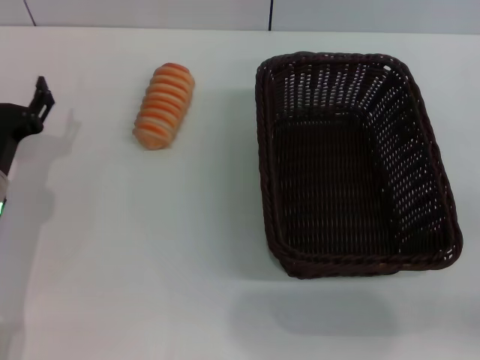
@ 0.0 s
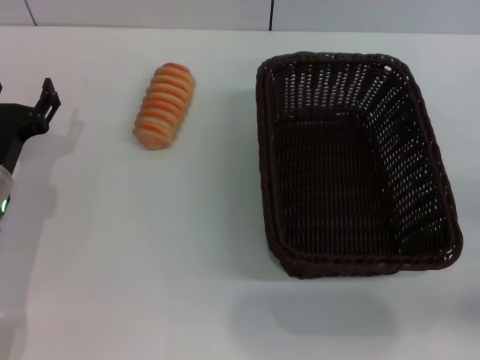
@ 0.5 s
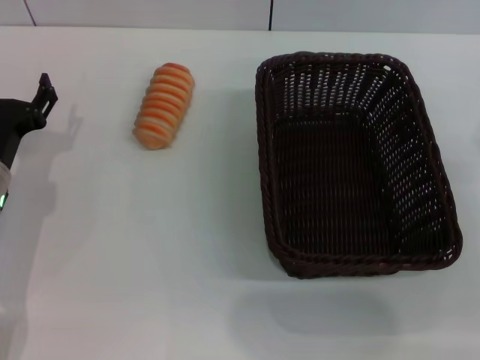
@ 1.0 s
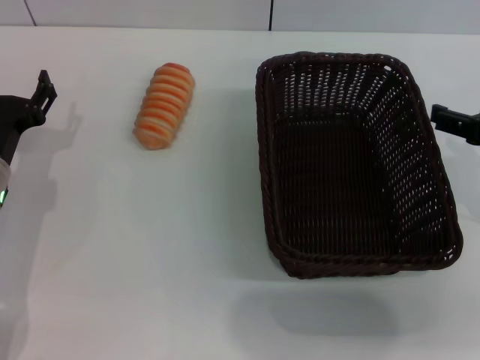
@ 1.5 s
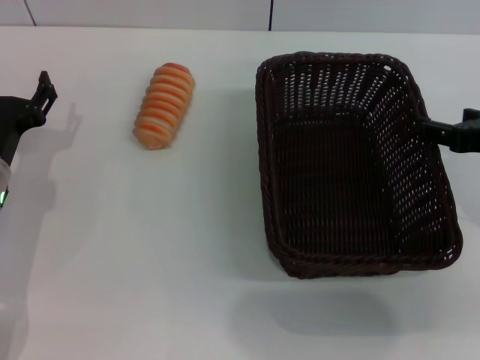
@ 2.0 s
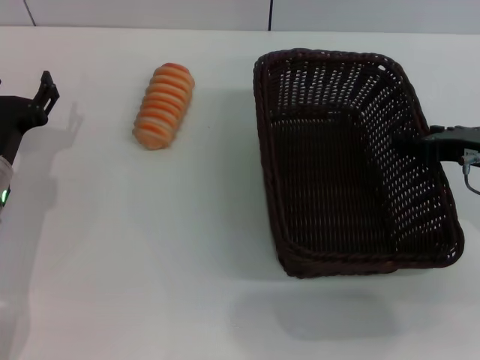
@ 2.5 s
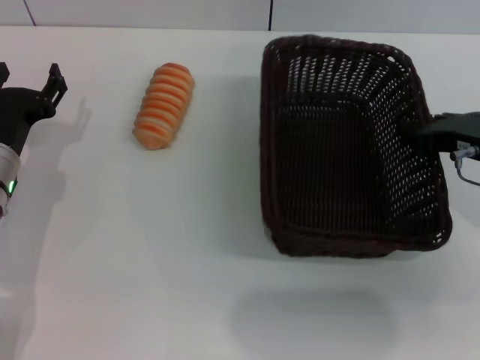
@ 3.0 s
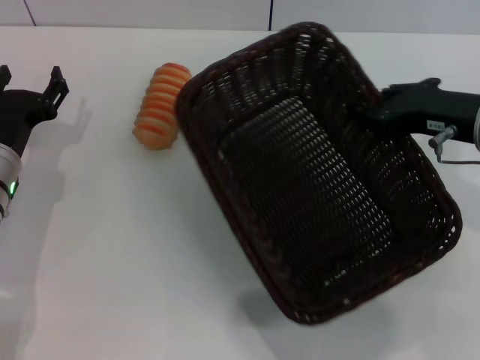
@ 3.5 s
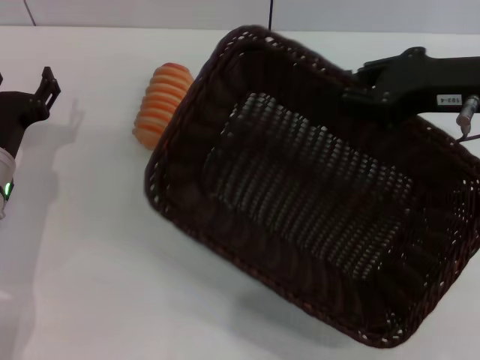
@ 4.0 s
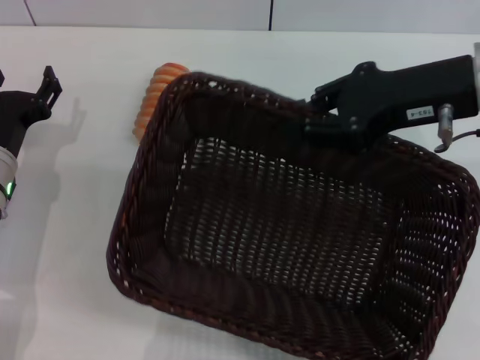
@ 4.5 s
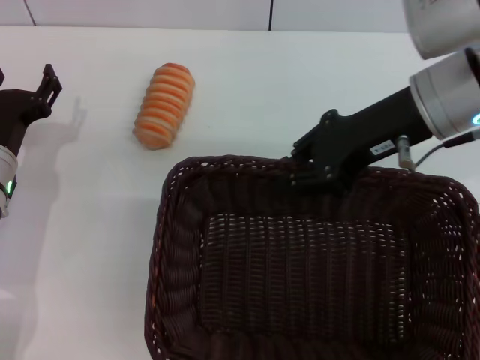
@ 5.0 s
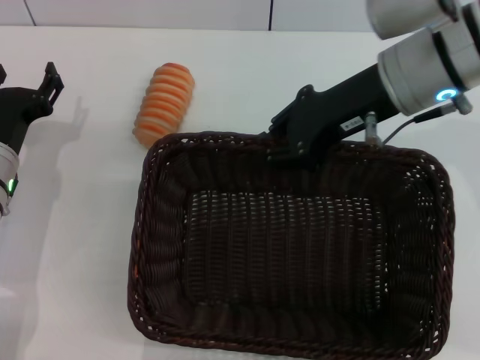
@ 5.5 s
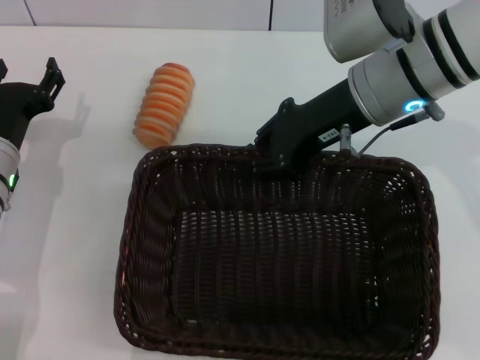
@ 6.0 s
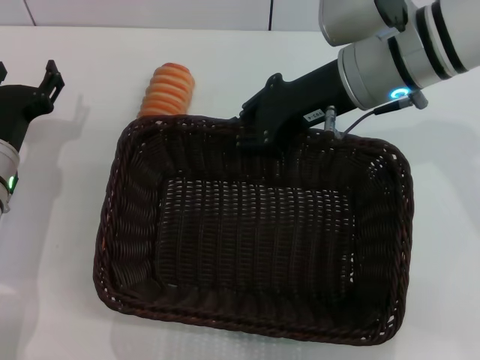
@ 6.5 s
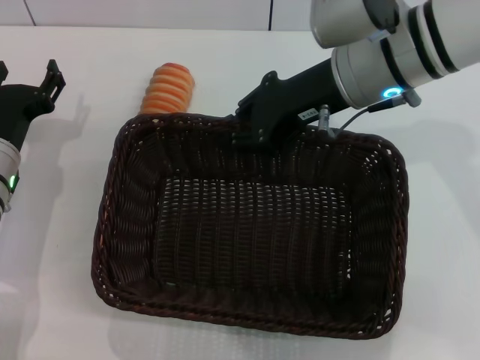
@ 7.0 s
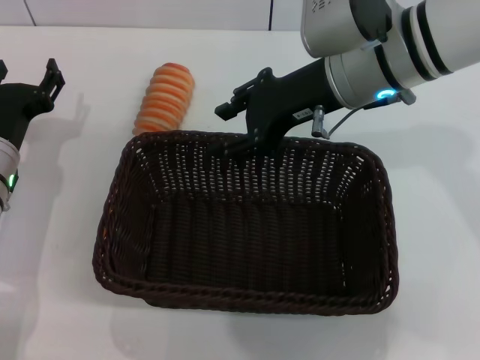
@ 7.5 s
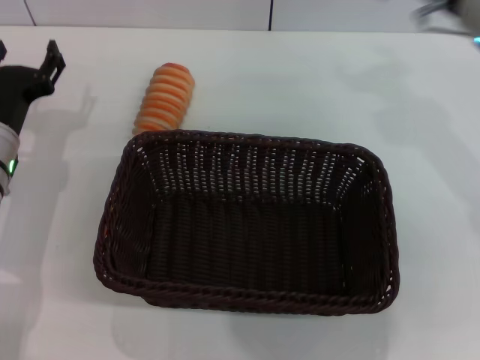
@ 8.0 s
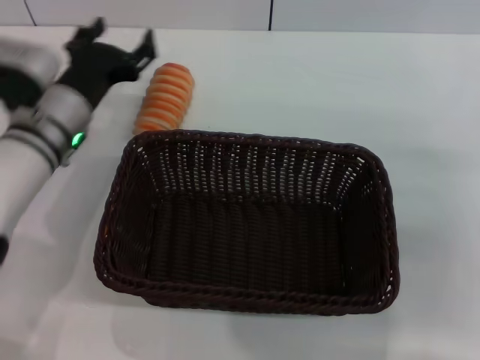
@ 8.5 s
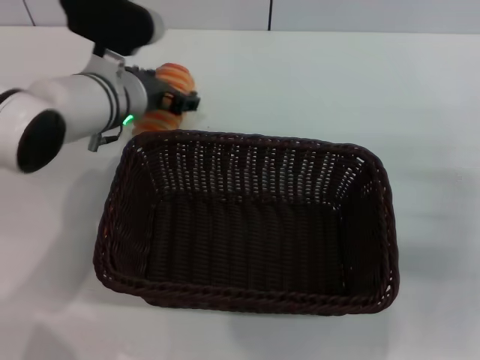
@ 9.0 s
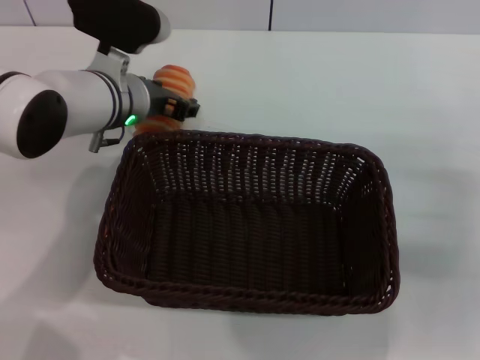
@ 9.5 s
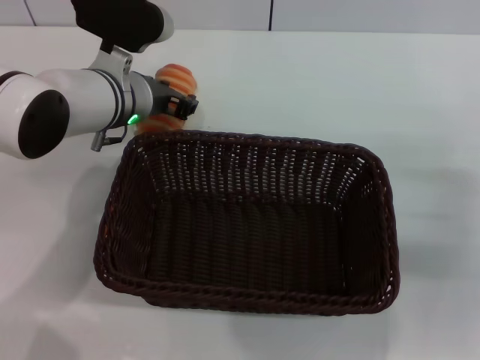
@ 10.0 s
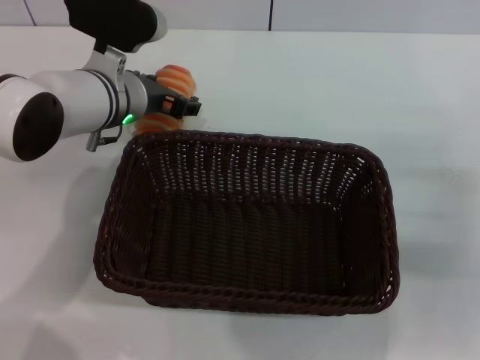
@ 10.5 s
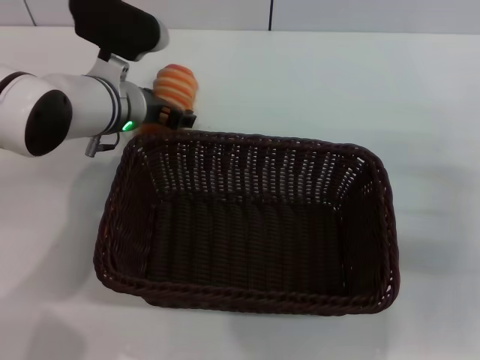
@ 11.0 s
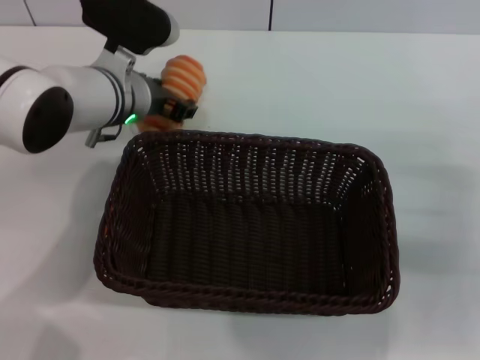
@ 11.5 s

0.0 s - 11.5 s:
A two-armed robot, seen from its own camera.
Step, 0.0 s - 4.5 s: Pick up the dark basket with the right gripper.
Step, 5.0 s - 7.0 s: Place the dark basket in the center of view with the right gripper.
0.0 s - 2.0 s: The right gripper goes about 20 cm upward, forward and to the left.
2.0 s - 4.0 s: The right gripper moves upward, some 5 cm, and closes its fingers.
4.0 s - 6.0 s: The right gripper heads to the left and forward, covering approximately 10 cm.
7.5 s - 9.5 s: The right gripper heads to the right, backward and downward, covering approximately 25 cm, and opens up, while the left gripper shifts some 15 cm to the right, forward and upward.
9.5 s - 11.5 s: The left gripper closes.

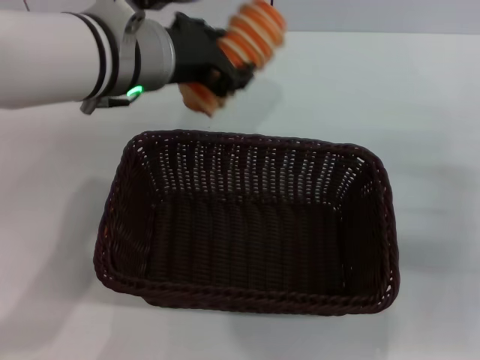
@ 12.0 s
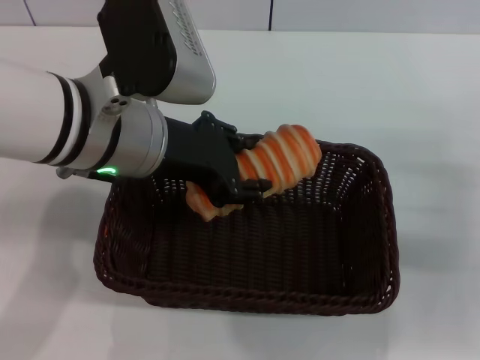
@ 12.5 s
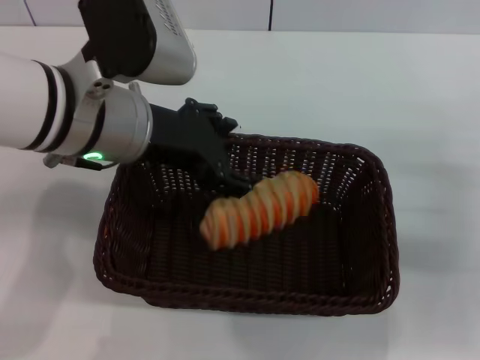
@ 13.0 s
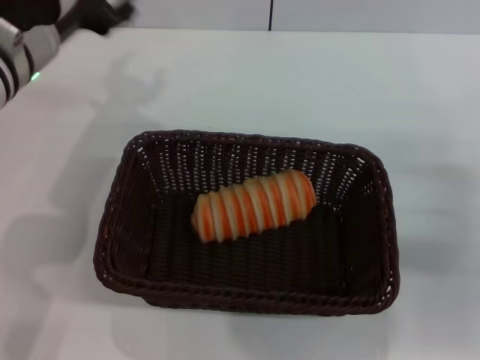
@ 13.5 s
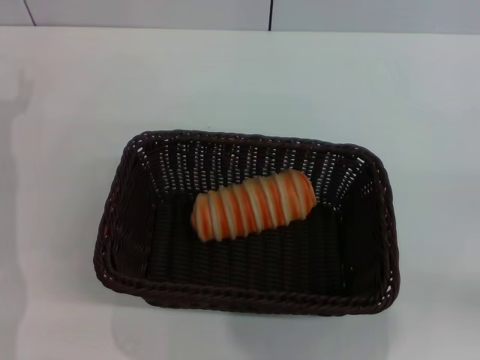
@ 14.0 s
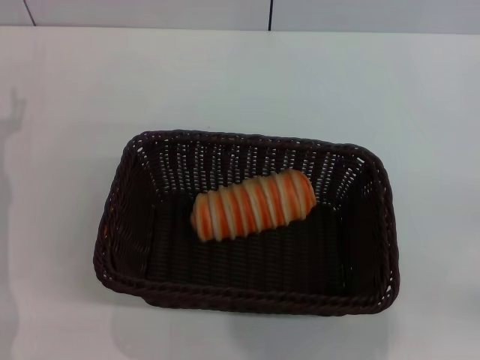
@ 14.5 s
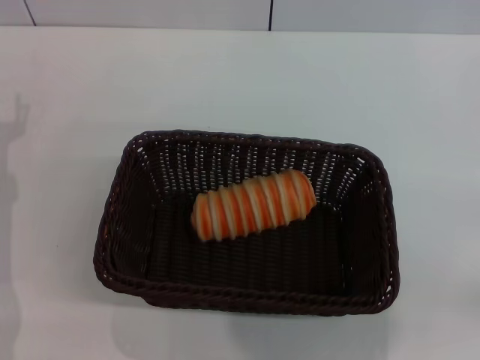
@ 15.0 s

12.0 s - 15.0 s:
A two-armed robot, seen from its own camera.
Step, 12.0 s - 13.0 s: Place the long bread into the dark basket with the left gripper.
12.0 s - 13.5 s: The left gripper heads to the left, covering roughly 10 cm, and opens.
13.5 s - 15.0 s: The right gripper heads to the right and backward, covering roughly 10 cm. The left gripper shifts some 15 cm downward, to the left and backward.

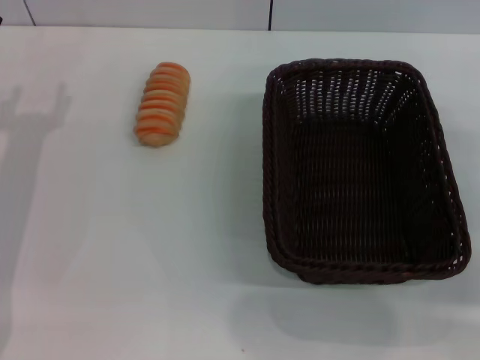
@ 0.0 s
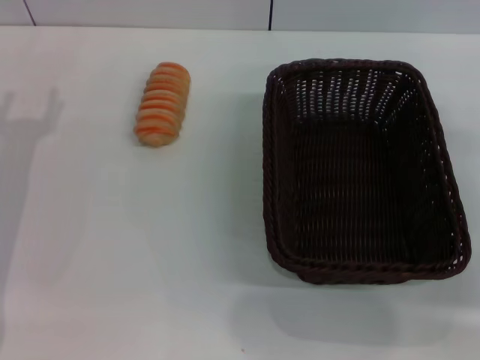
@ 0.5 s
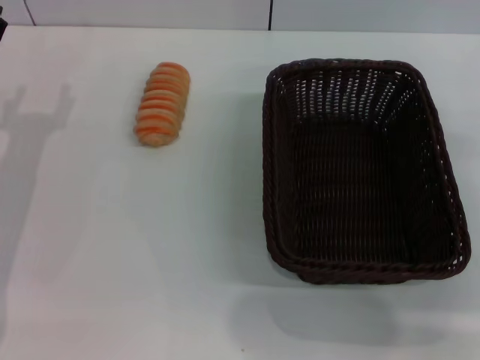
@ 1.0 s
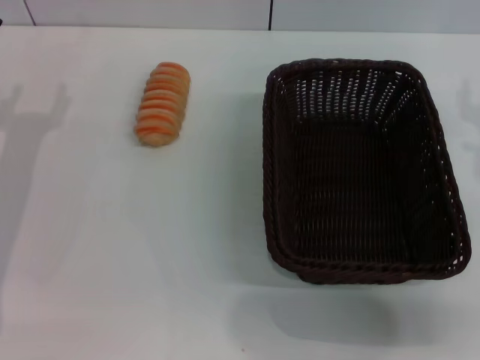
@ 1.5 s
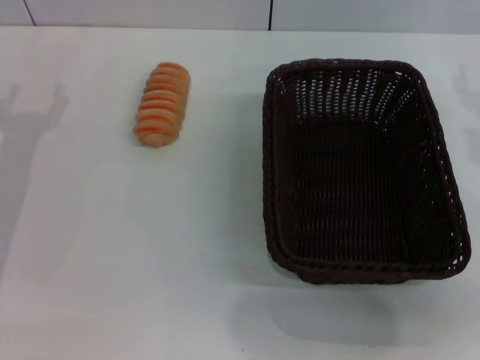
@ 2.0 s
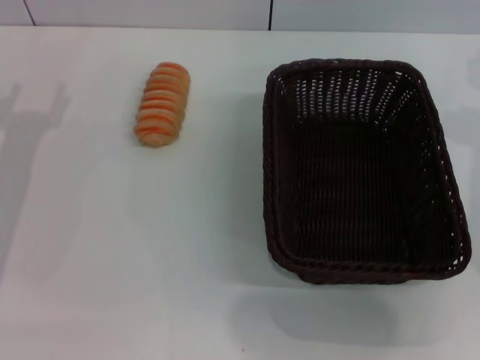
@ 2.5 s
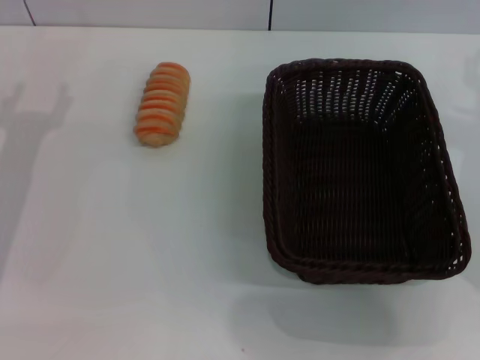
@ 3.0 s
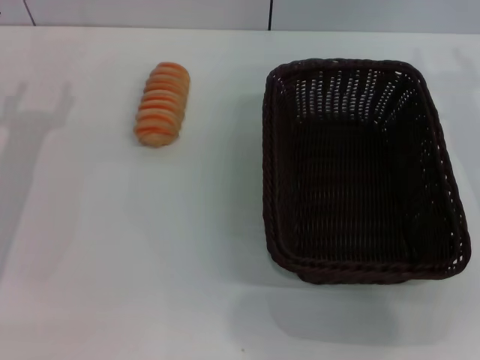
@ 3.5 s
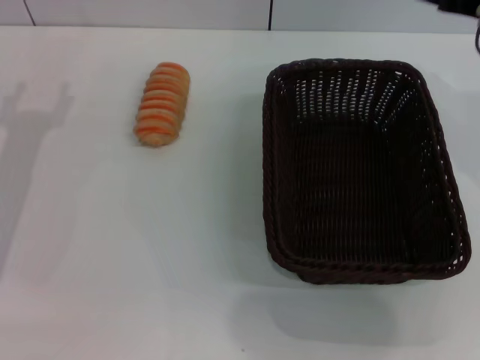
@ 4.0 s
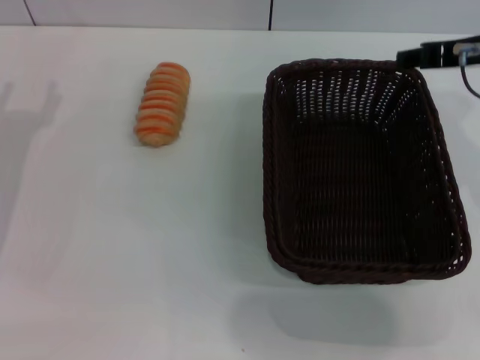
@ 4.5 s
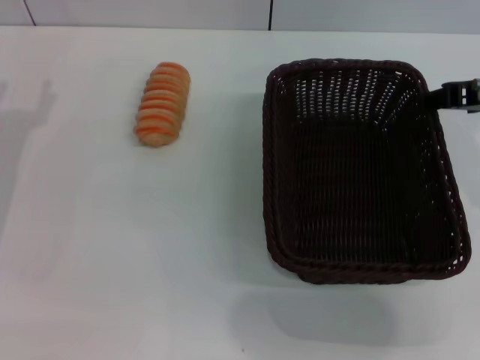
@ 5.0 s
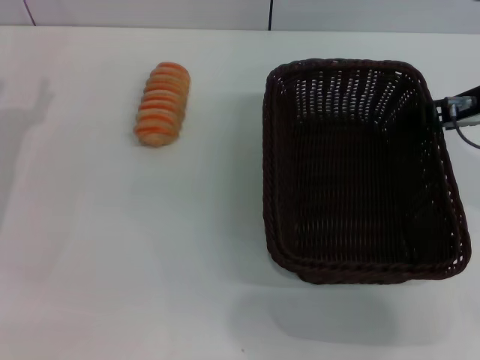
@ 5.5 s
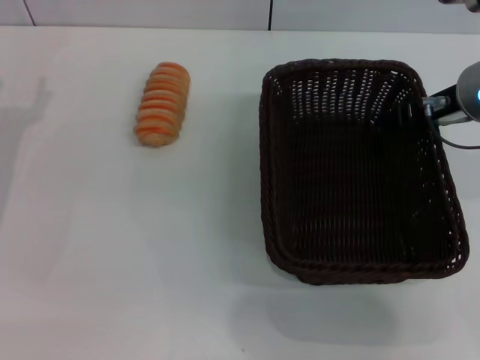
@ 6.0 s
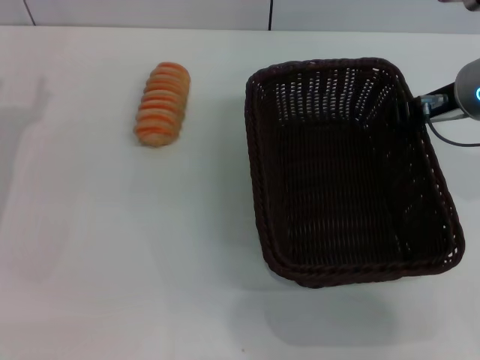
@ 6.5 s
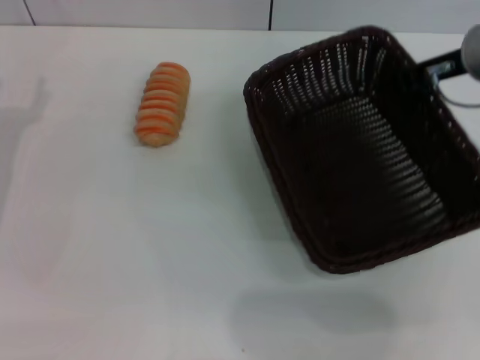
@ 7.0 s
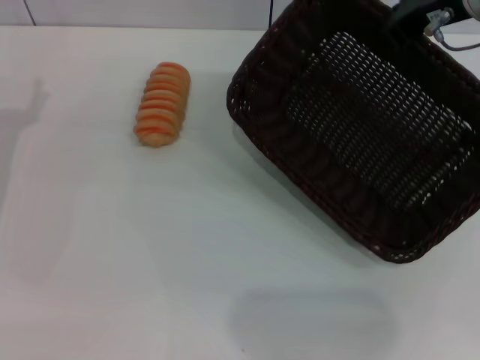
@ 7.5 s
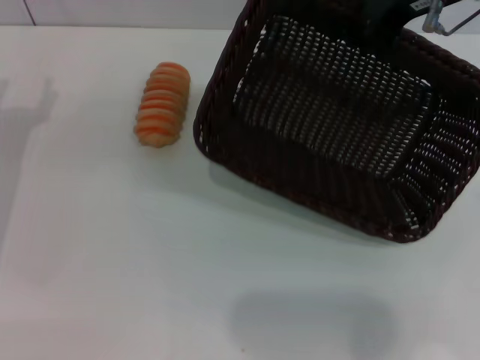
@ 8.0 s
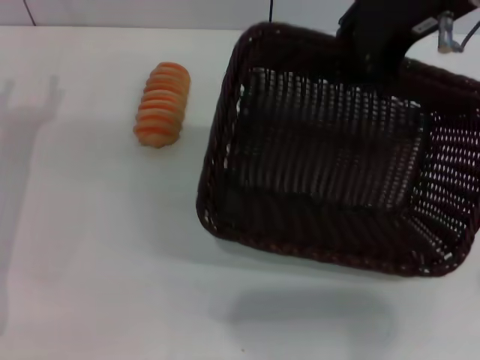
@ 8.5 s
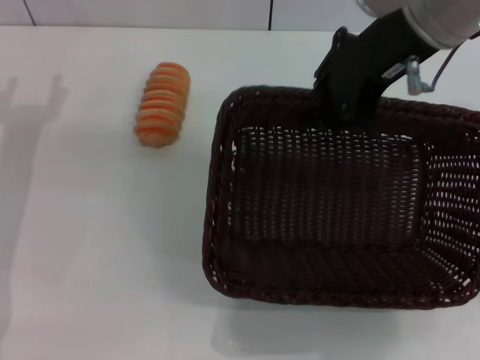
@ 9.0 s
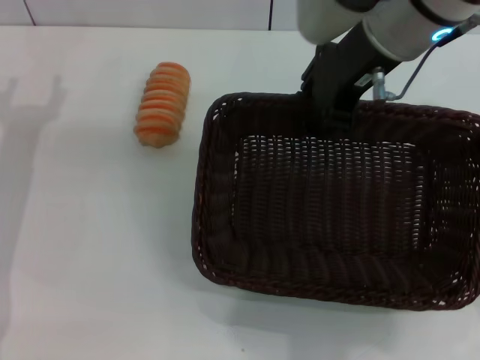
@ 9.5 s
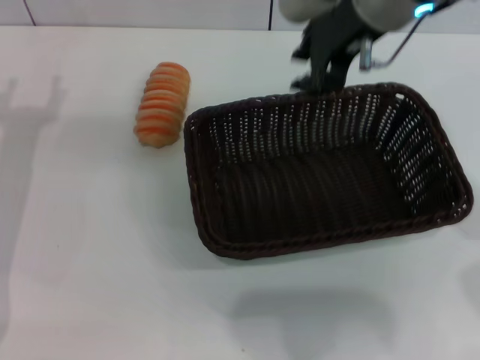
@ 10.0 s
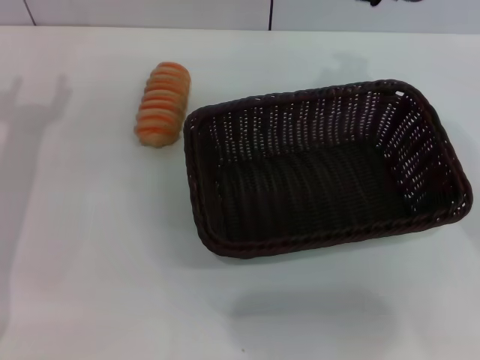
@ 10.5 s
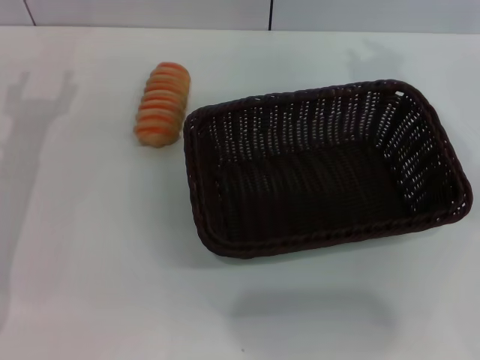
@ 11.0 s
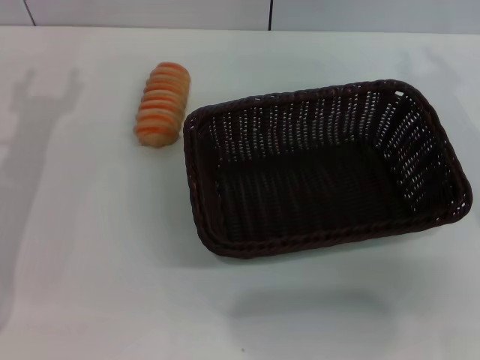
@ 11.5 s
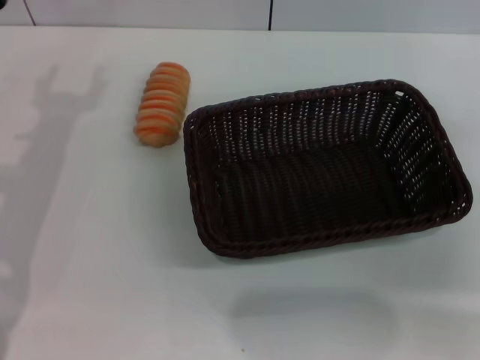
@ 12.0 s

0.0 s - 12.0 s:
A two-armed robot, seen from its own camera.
Step, 0.0 s - 8.0 s: Pick up the dark basket with the right gripper.
Step, 8.5 s - 10.0 s: Place the dark basket in the center of view with the right gripper.
0.0 s - 2.0 s: The right gripper travels upward by some 5 cm.
6.0 s - 8.0 s: The right gripper heads upward, covering some 10 cm, and closes up.
8.0 s - 10.0 s: The right gripper shifts some 5 cm to the left, and opens.
10.0 s - 12.0 s: The right gripper travels to the right, downward and backward by about 25 cm.
